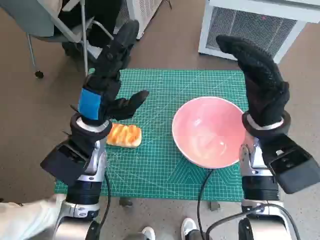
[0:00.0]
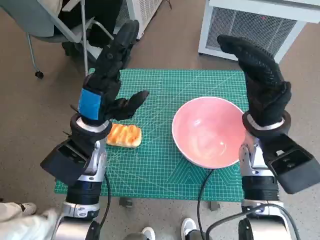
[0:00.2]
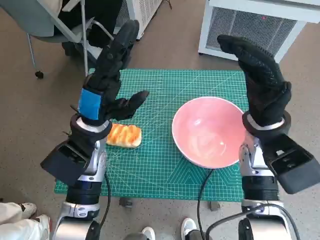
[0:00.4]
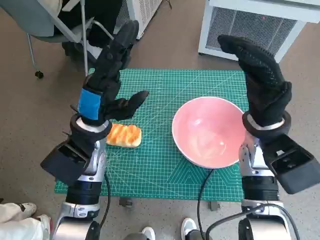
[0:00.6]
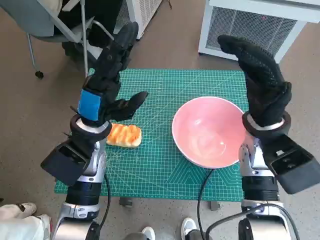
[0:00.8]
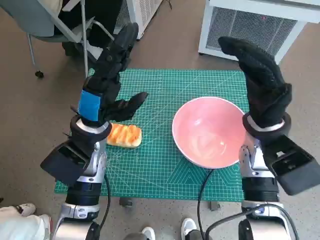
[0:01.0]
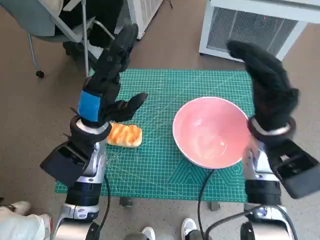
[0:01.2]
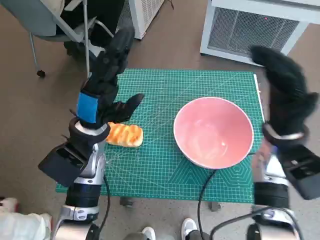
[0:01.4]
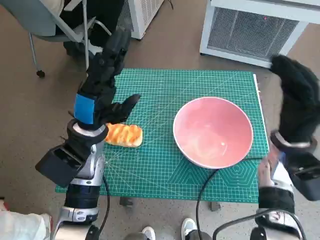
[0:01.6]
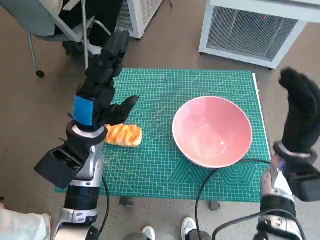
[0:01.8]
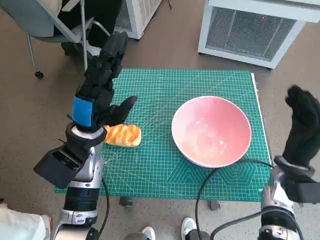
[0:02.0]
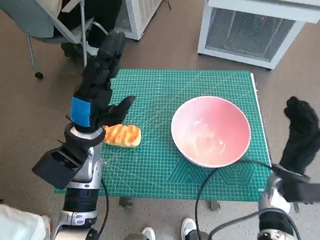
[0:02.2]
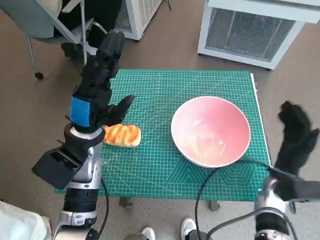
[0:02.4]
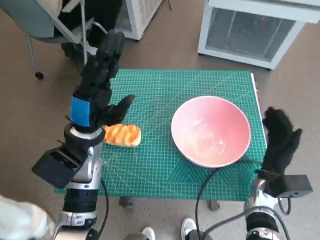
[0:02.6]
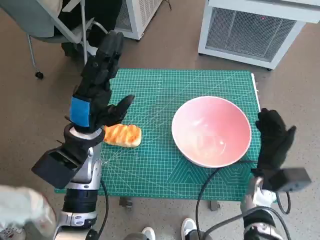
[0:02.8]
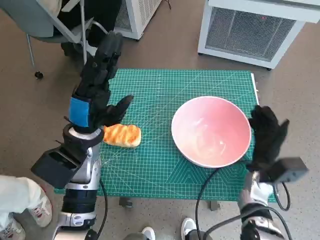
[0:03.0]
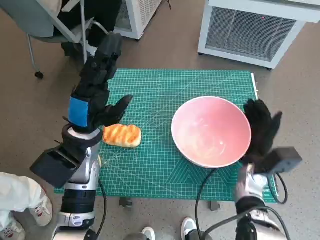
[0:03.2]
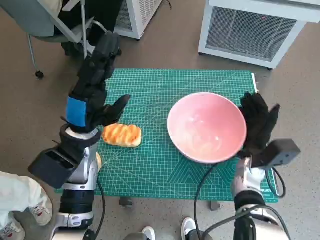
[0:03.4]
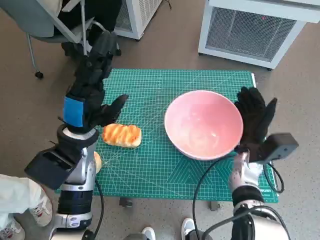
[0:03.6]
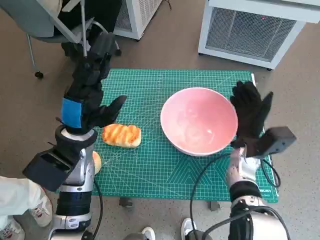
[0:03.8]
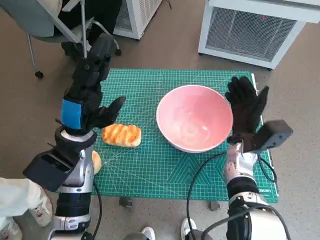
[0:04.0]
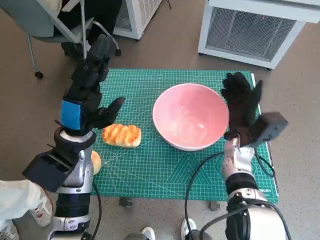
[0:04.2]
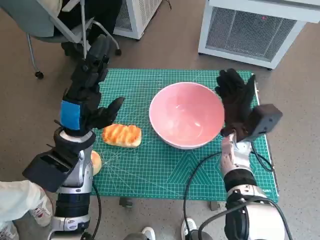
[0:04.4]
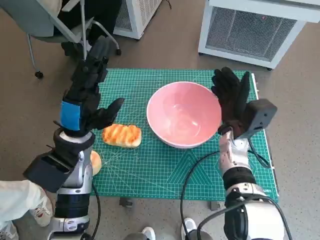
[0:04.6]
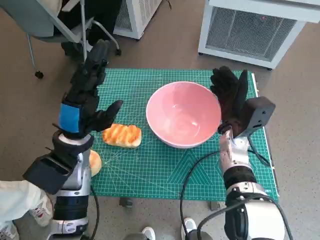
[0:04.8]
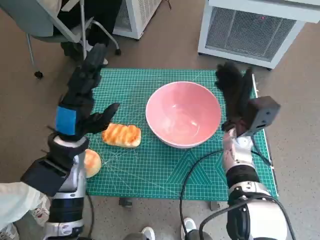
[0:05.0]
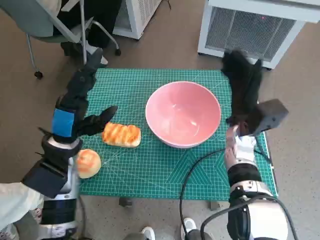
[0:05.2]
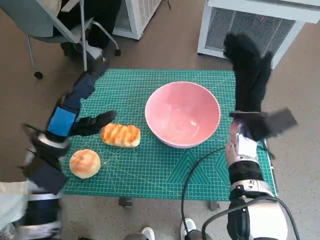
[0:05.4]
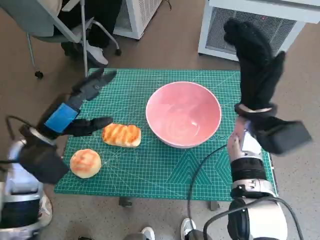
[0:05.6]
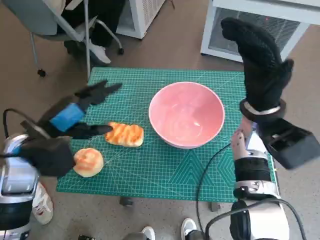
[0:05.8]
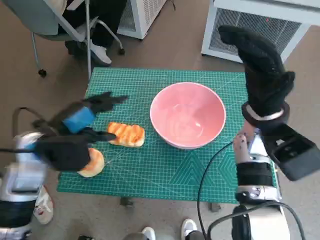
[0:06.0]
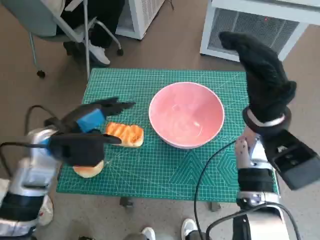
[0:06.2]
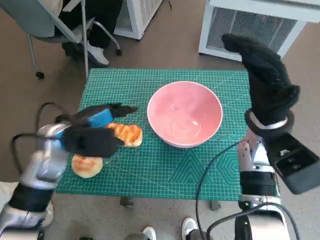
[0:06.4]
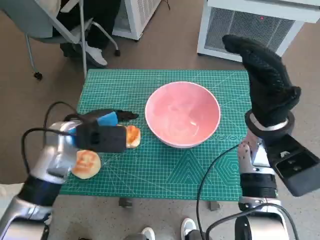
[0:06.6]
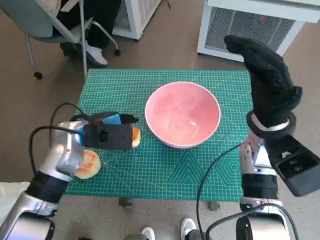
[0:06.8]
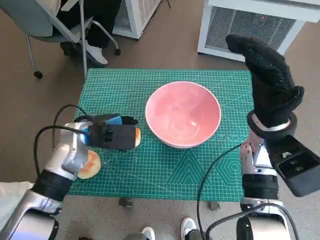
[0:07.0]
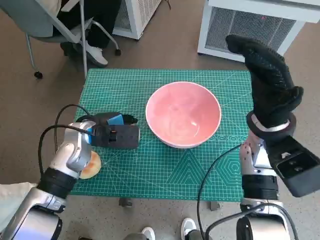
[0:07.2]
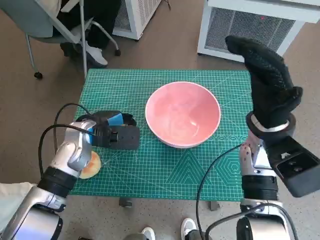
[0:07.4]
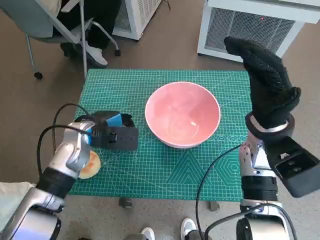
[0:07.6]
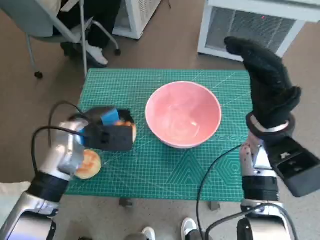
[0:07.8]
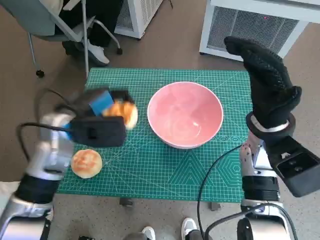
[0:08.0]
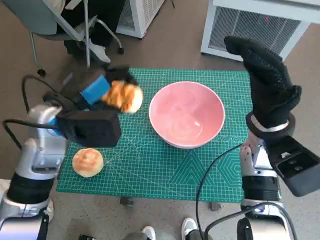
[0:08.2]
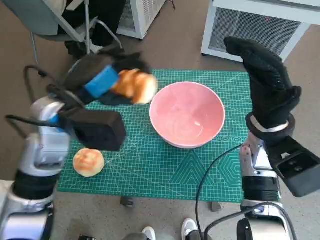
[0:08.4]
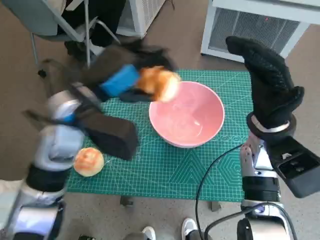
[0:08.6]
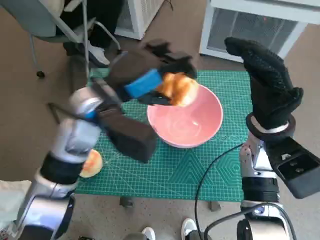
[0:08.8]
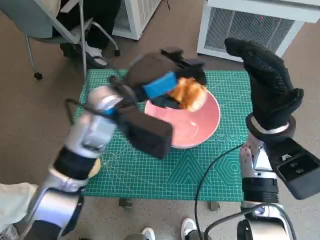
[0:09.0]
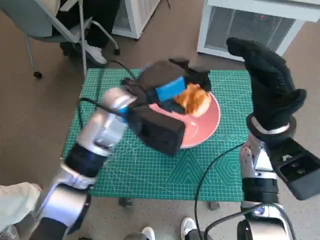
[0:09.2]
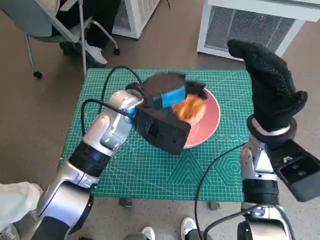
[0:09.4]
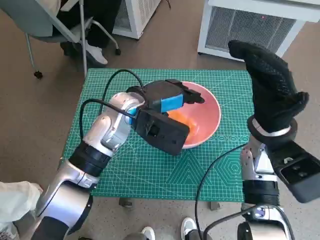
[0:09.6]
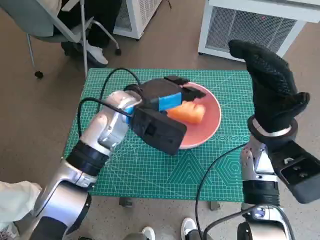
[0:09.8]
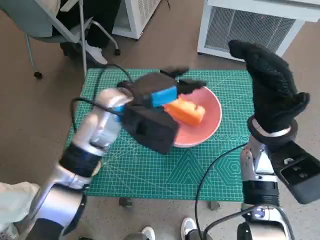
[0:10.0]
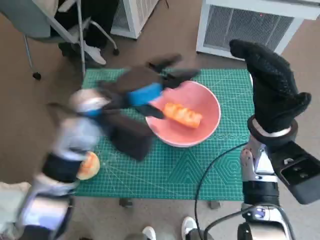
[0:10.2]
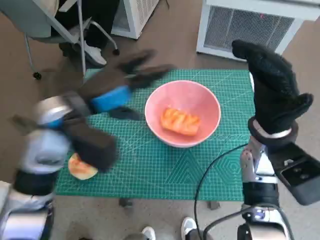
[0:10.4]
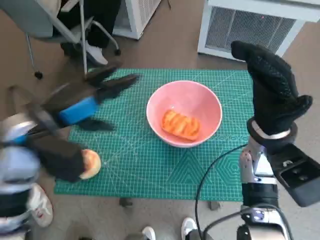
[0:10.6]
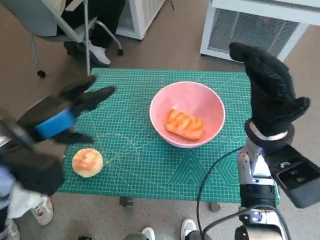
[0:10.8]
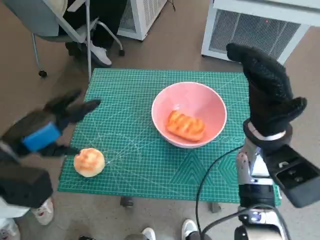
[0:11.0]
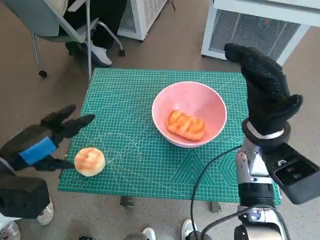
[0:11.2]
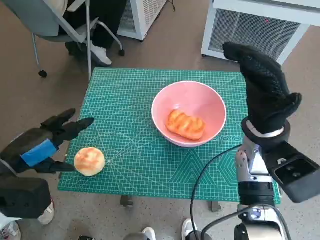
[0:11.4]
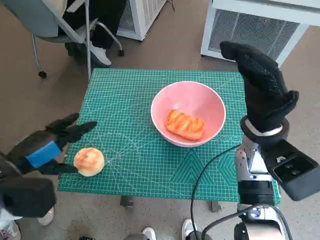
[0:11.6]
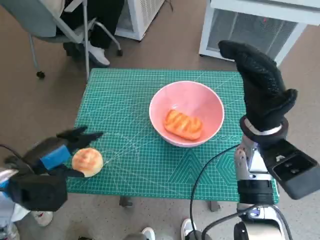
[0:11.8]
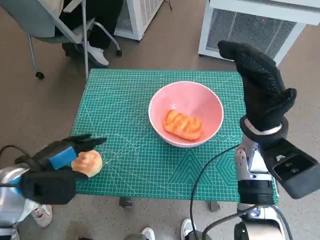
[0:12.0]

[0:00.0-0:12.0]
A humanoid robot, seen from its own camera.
Task of the whole recording: Push the bowl to the center of the table and put the bread into the bowl.
Step, 0:00.0 to 0:05.0: Move the pink bowl to the center of table with right hand.
Step, 0:05.2 to 0:07.6: Grasp the long bread with left hand.
Step, 0:07.8 to 0:09.8: Place the long bread in pink bowl with left hand.
0:01.6 to 0:03.0: The right hand goes about 10 cm downward.
0:03.0 to 0:04.4: The right hand travels forward, to the left and upward by approximately 10 cm.
0:04.4 to 0:06.0: The right hand is displaced upward by about 10 cm. Meanwhile the left hand travels to the left by about 5 cm.
0:06.0 to 0:07.6: The left hand heads forward and downward, covering roughly 10 cm.
0:07.6 to 0:09.0: The left hand moves upward and to the right, approximately 15 cm.
0:09.0 to 0:10.4: The left hand goes about 5 cm to the left.
0:10.4 to 0:12.0: The left hand heads to the left, downward and backward, covering some 15 cm.

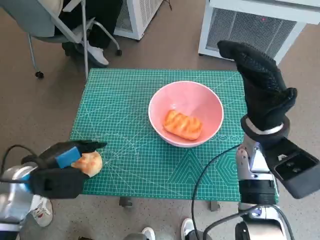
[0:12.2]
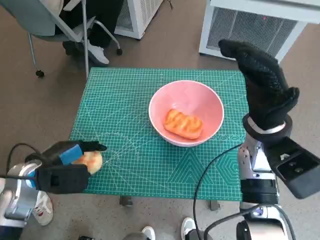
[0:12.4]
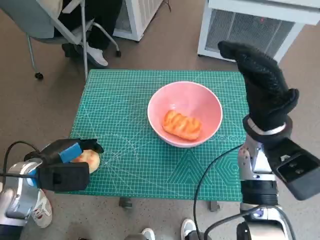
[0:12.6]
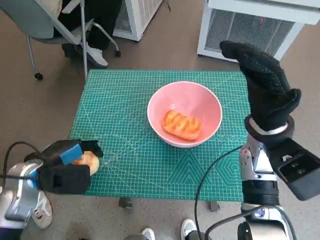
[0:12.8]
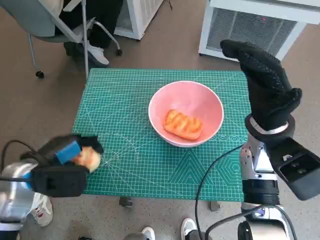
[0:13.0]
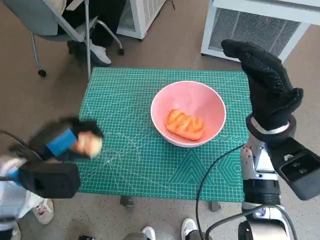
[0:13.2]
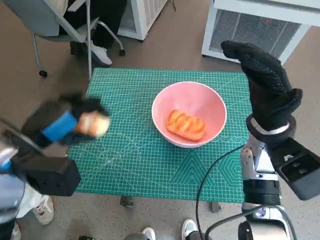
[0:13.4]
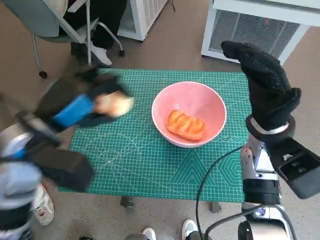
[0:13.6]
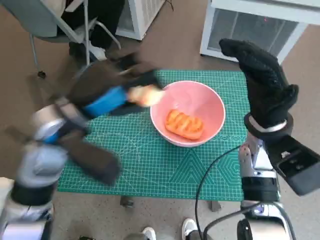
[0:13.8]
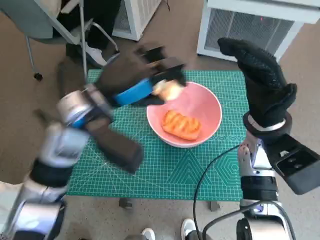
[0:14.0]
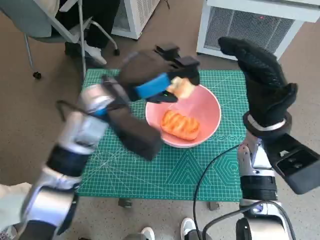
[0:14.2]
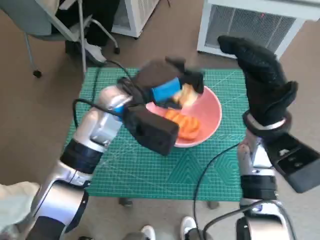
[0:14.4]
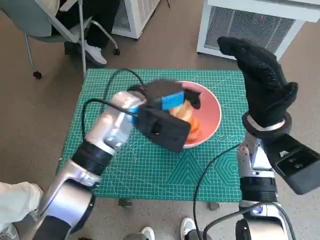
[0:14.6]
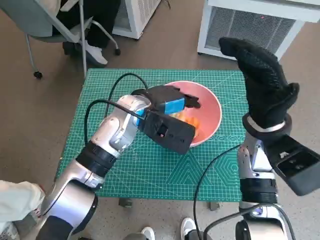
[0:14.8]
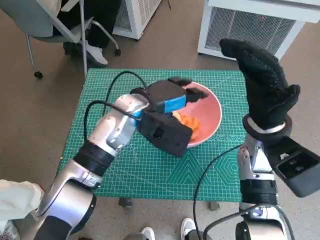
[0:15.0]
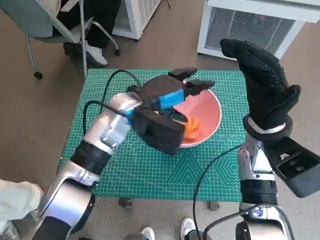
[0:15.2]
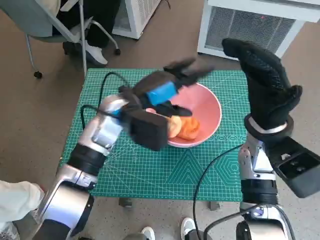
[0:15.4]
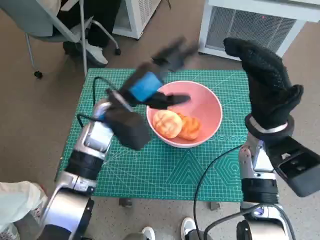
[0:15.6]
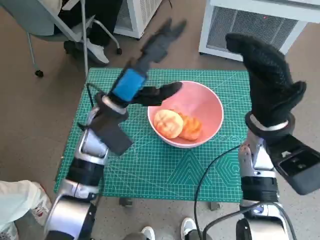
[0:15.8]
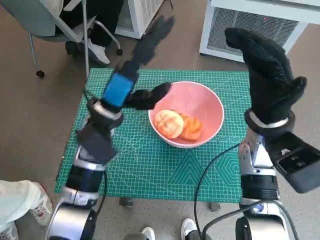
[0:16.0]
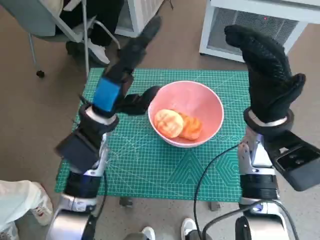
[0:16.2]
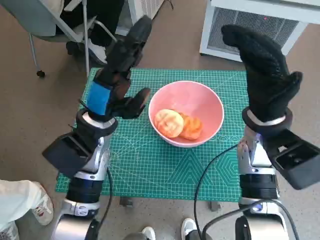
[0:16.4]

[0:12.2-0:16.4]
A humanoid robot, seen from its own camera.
Task of the whole recording: Push the bowl to the center of the table and put the bread into the bowl.
Step, 0:12.8 to 0:15.2: Place the round bread in pink bowl with left hand.
0:12.2 to 0:13.6: The left hand moves upward and to the right, about 10 cm.
0:13.6 to 0:15.0: The left hand is displaced to the right and forward by approximately 20 cm.
0:15.0 to 0:16.4: The left hand shifts about 5 cm to the left.

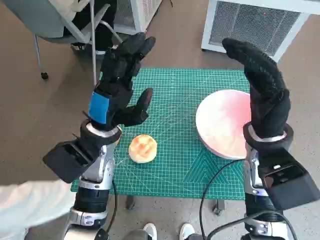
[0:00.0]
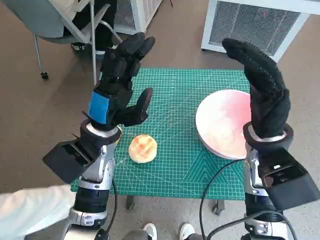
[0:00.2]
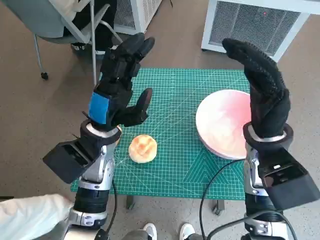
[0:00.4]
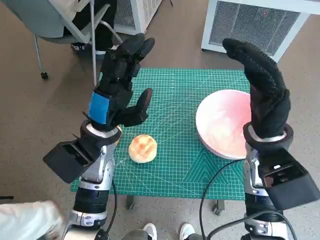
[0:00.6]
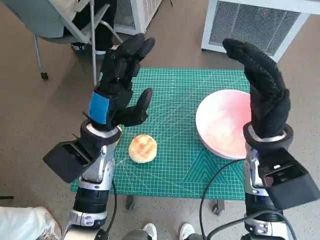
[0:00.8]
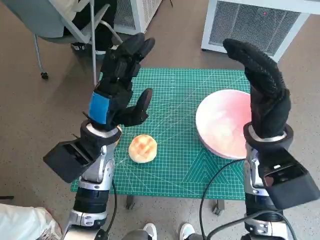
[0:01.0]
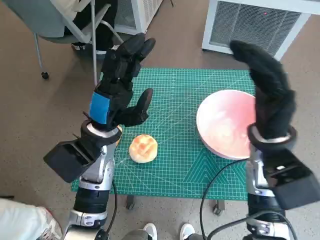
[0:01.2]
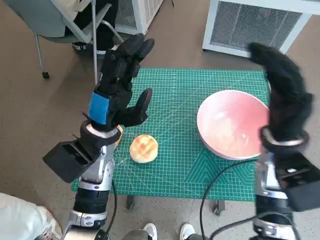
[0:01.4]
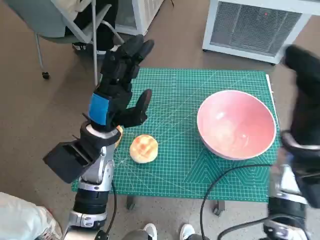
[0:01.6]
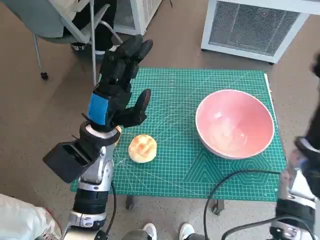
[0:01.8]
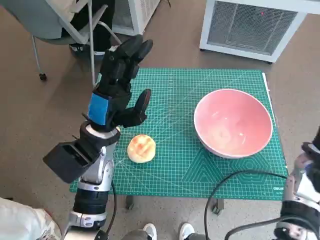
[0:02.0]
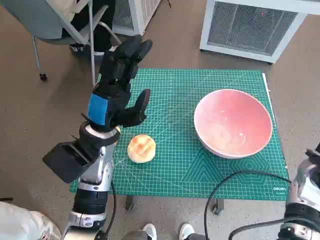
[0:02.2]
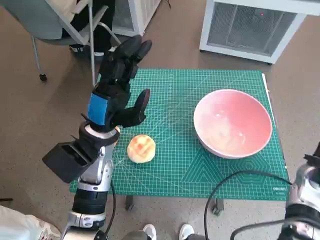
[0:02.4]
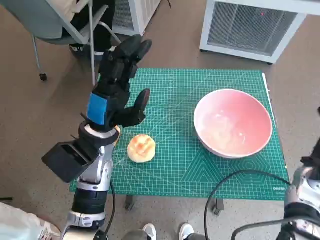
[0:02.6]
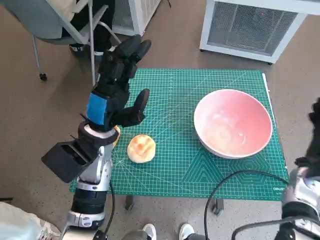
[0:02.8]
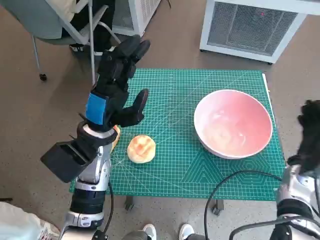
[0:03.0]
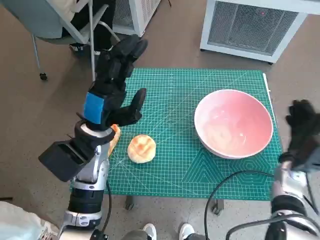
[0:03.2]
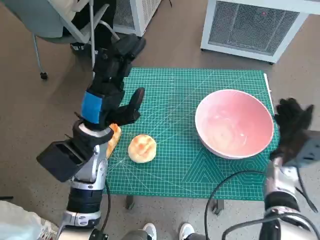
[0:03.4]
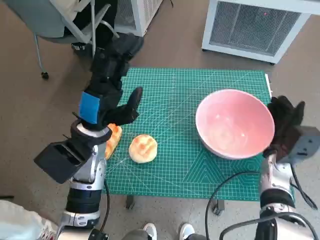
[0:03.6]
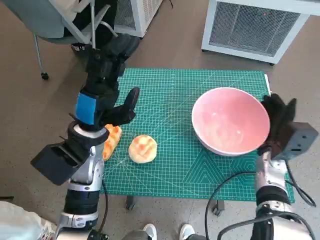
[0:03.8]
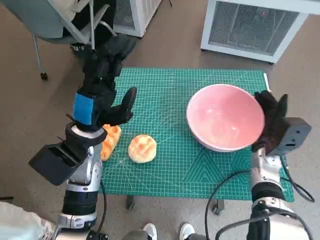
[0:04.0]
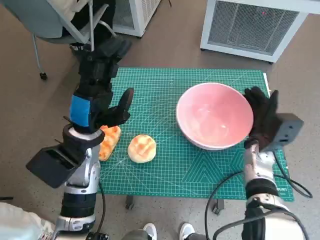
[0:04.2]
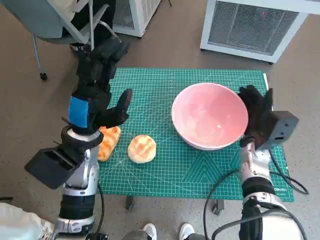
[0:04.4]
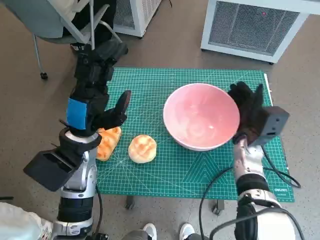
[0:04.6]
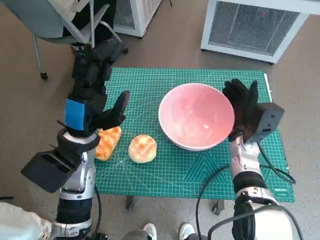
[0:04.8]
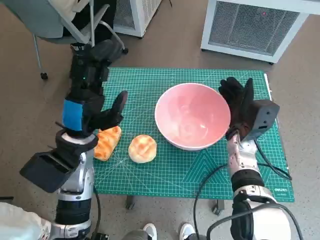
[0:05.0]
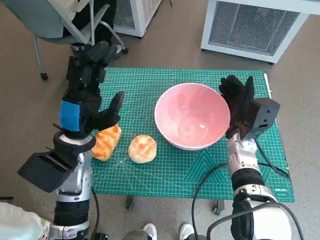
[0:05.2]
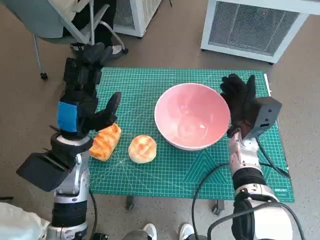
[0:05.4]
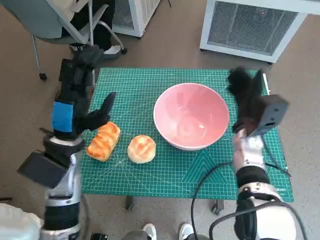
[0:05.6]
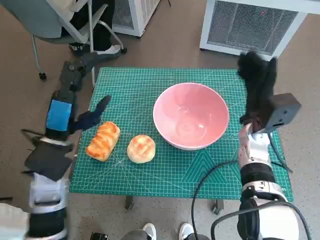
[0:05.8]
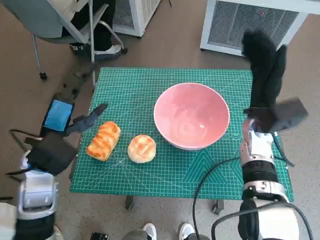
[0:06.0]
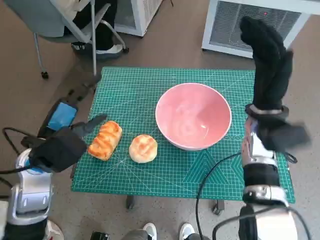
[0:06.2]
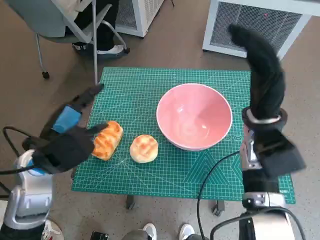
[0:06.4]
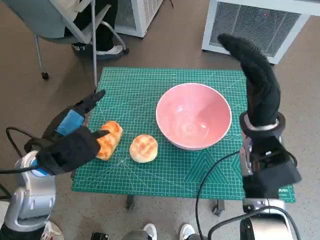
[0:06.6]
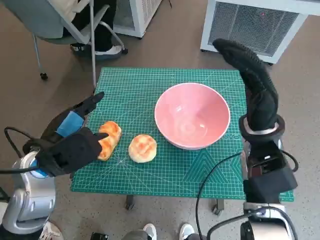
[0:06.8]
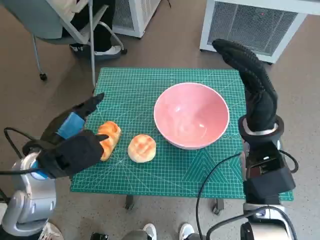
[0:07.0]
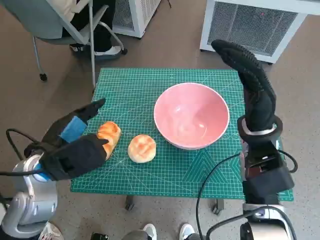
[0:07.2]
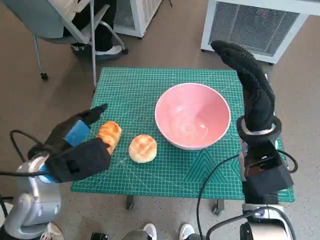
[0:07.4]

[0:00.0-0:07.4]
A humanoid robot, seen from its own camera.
Task of the whole recording: Push the bowl to the center of the table and put the bread into the bowl.
Step, 0:00.0 to 0:05.6: Move the pink bowl to the center of table with right hand.
0:01.4 to 0:03.0: The right hand shifts some 15 cm downward and to the right.
0:03.0 to 0:04.4: The right hand shifts about 10 cm to the left.
0:04.4 to 0:06.0: The right hand moves upward, roughly 10 cm. The left hand goes roughly 5 cm to the left.
0:06.0 to 0:07.4: The right hand shifts by some 5 cm.
